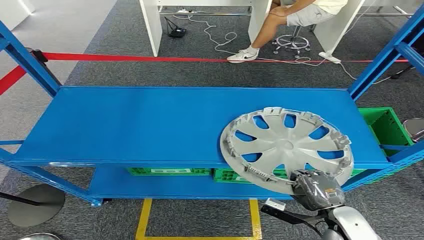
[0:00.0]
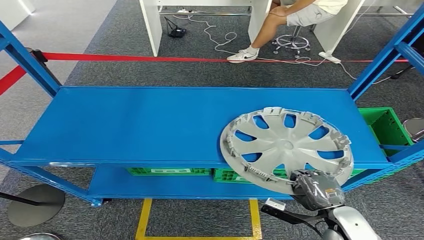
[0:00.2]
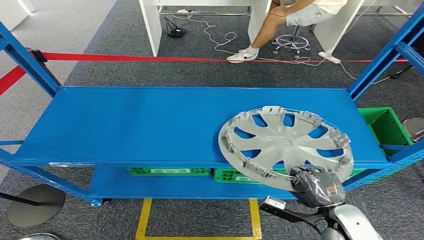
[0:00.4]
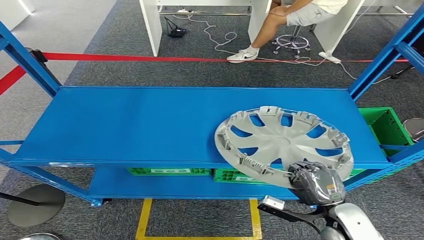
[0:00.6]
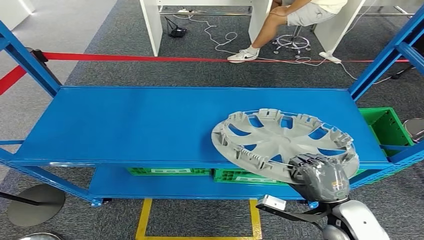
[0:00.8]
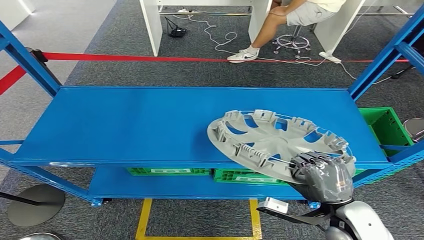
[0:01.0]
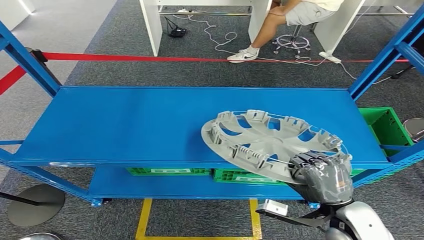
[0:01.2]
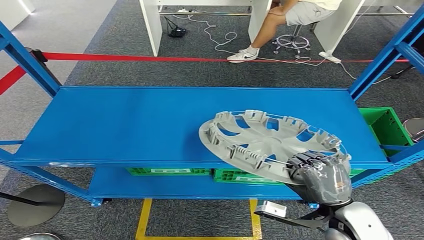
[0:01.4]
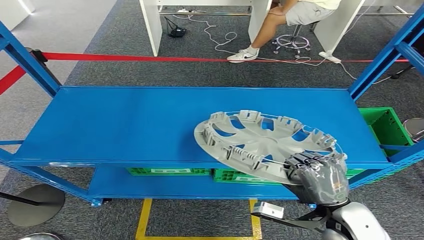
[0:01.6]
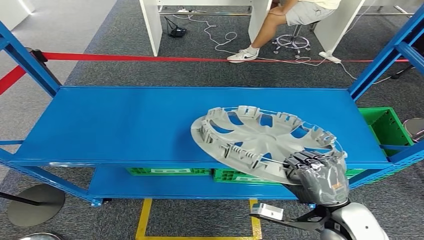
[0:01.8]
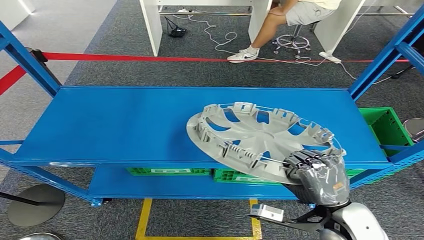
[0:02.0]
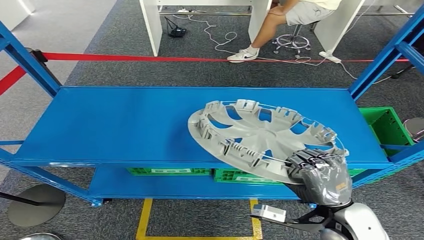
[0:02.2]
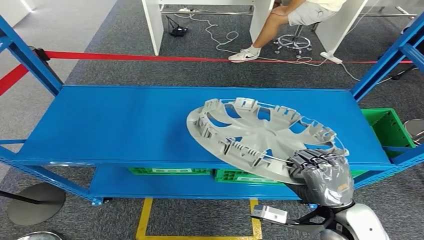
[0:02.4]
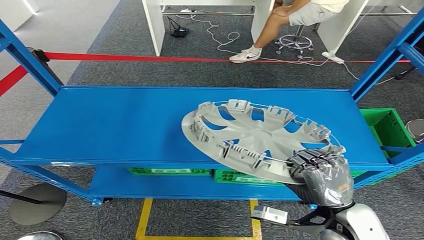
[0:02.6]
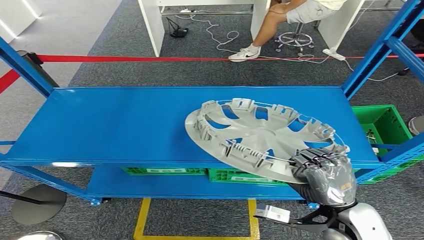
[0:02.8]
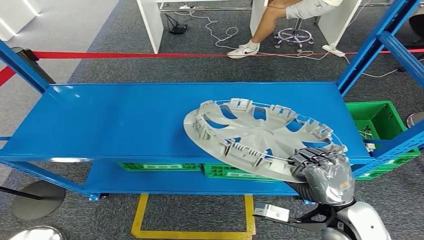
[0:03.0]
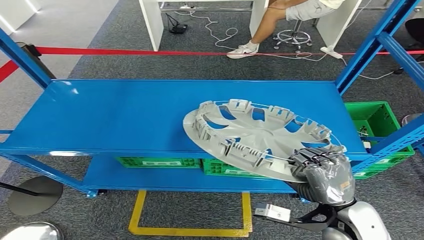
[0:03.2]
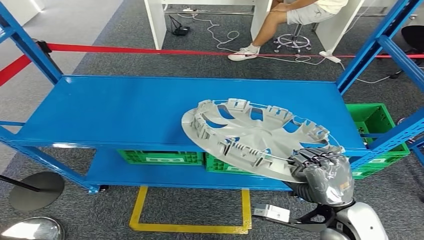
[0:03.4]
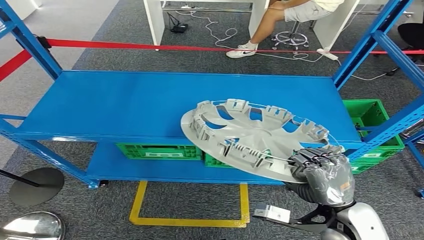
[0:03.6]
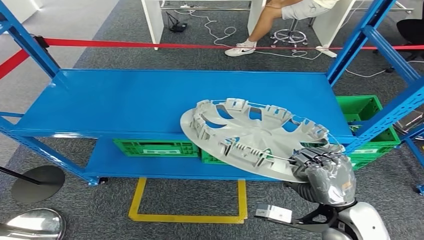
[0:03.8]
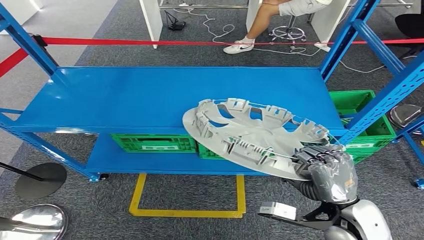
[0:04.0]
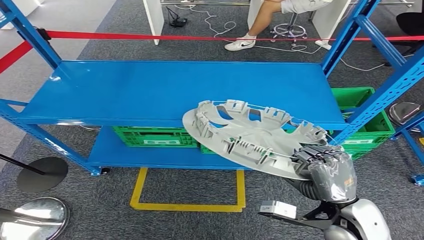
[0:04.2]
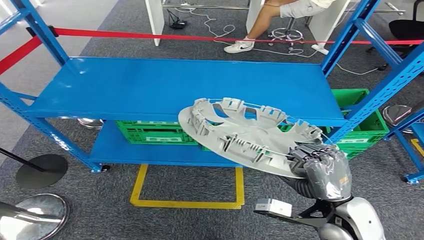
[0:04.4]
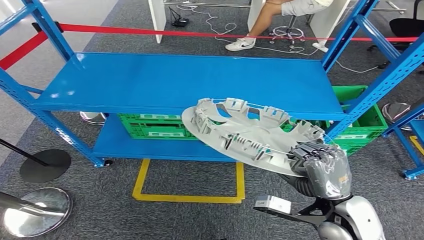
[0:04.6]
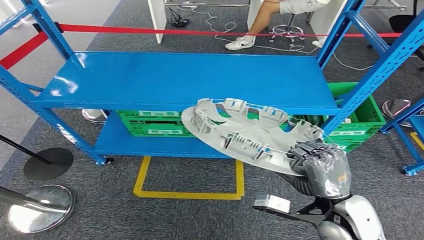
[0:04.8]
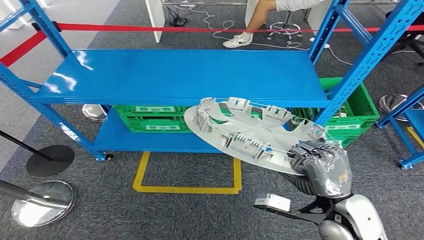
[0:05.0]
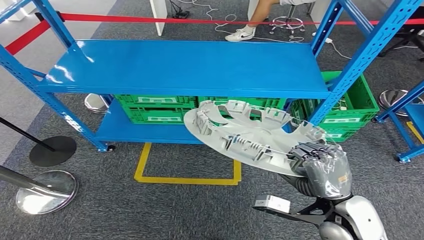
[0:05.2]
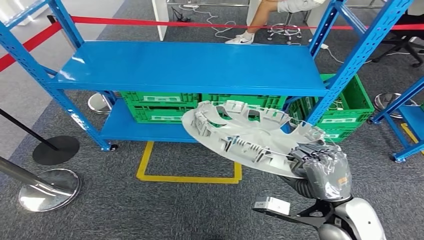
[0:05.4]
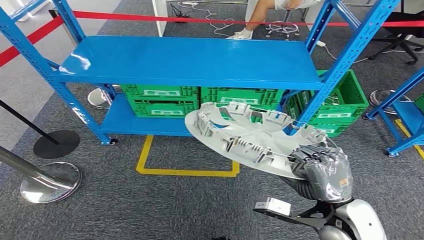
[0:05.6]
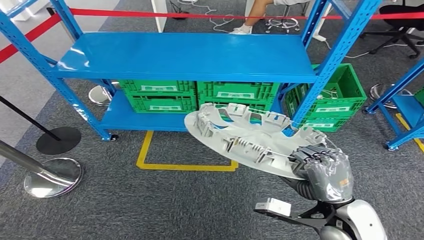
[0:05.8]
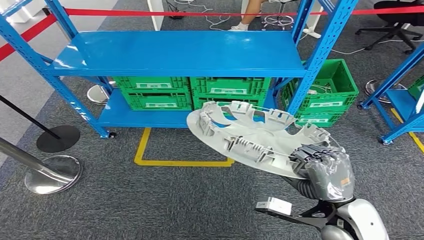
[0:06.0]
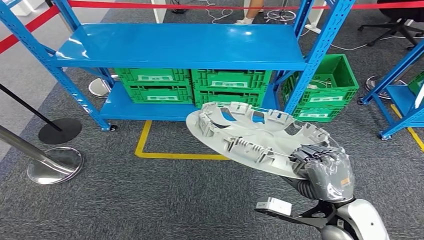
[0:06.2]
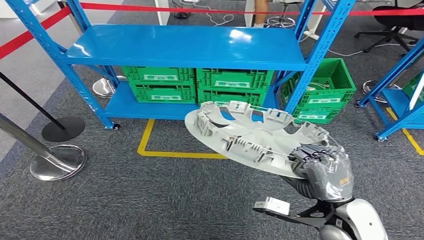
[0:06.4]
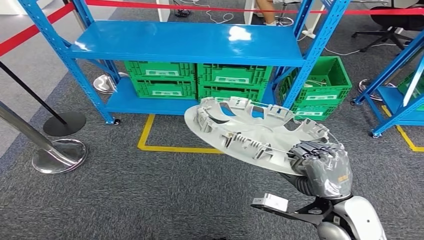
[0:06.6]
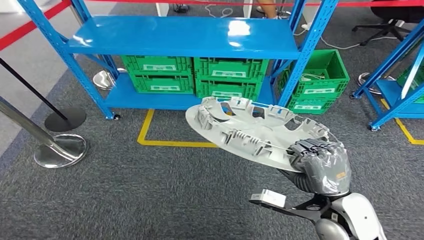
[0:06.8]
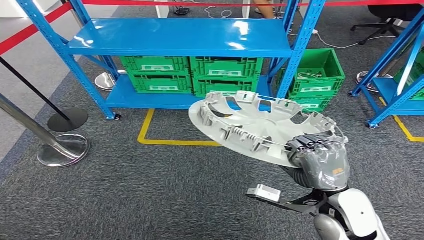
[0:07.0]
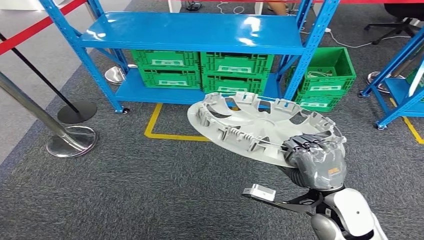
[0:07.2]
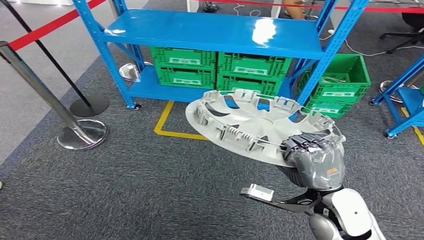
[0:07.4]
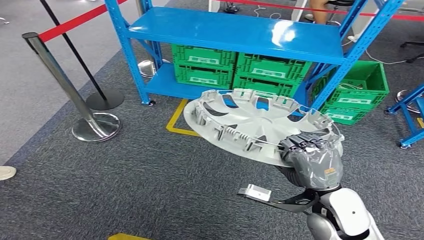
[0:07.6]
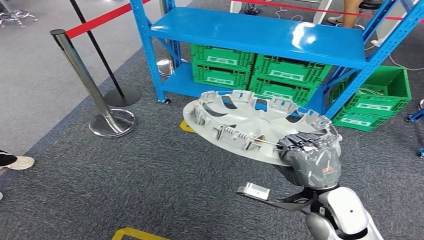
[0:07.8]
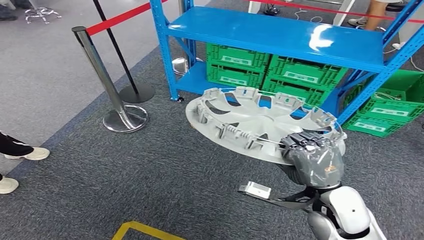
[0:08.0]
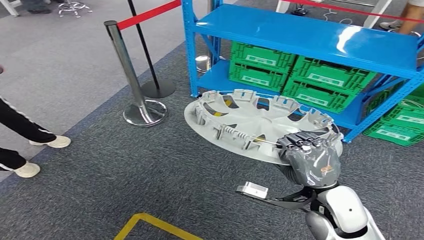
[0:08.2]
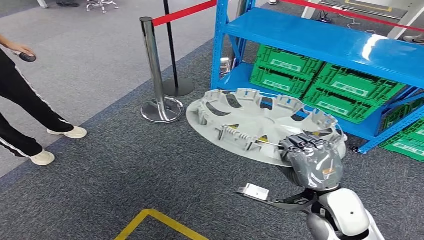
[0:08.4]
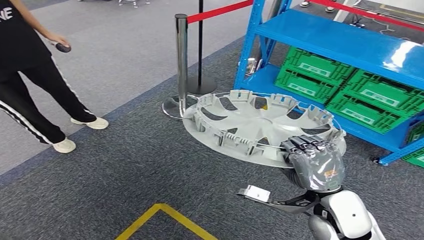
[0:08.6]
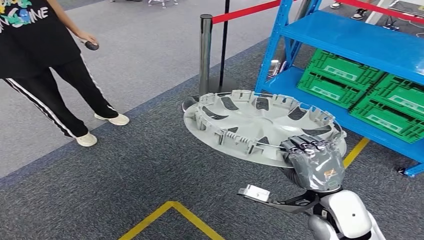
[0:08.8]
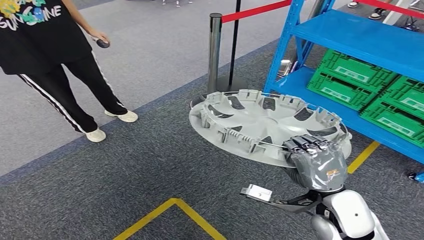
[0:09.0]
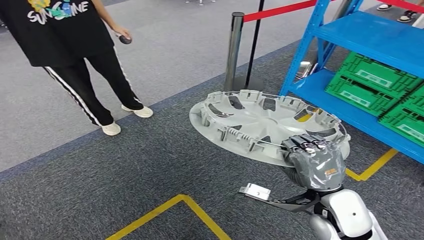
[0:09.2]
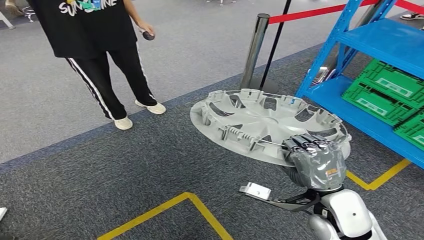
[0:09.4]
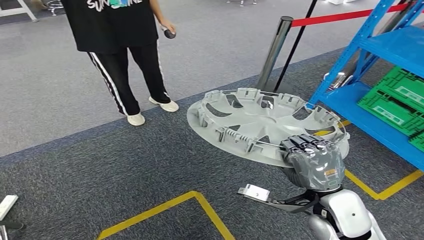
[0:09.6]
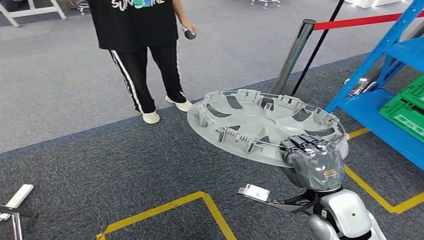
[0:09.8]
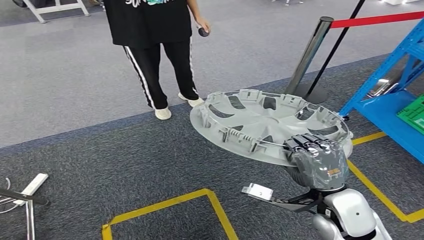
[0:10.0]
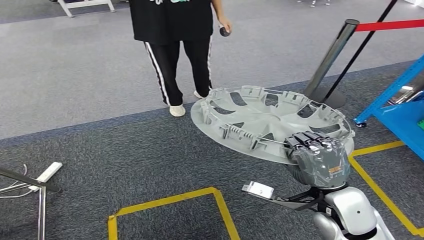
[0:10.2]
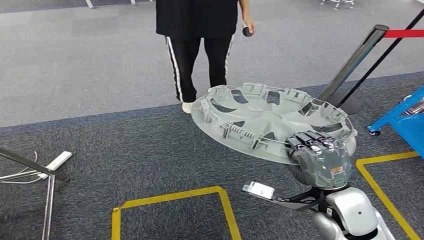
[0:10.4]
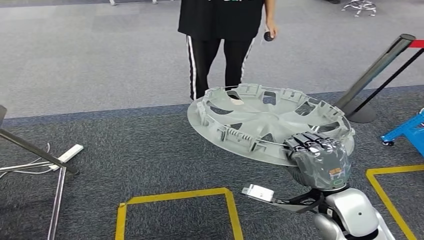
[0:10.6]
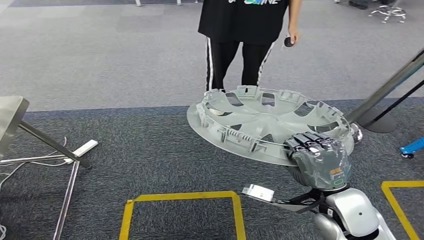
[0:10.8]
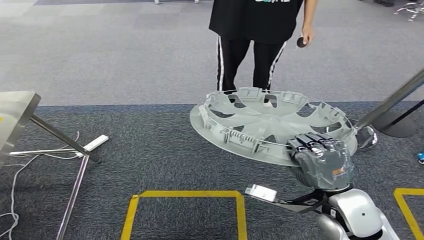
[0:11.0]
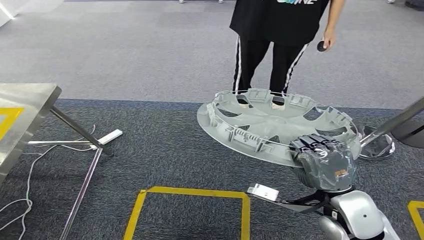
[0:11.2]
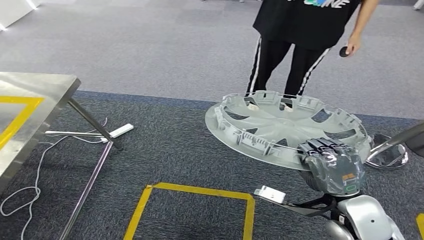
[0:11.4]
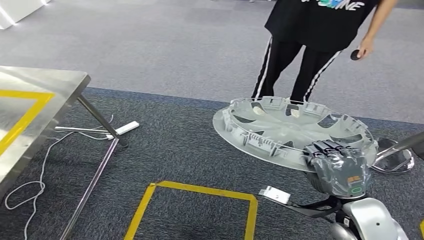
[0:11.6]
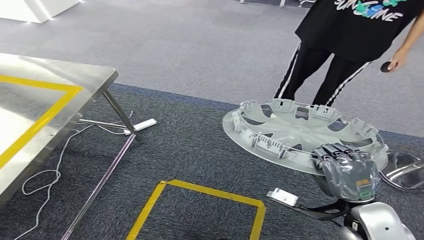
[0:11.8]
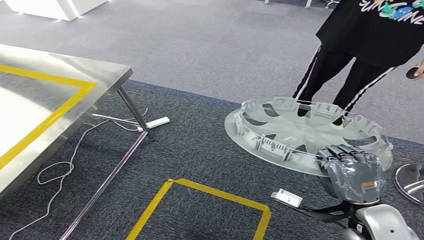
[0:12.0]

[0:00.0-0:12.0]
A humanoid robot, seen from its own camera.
Step, 0:00.0 to 0:03.6: Take small components from the rack.

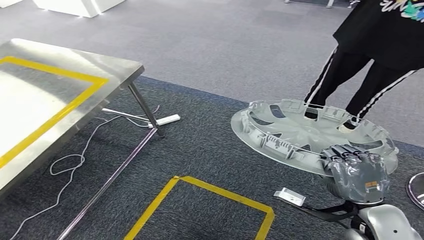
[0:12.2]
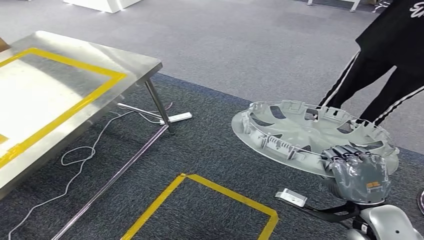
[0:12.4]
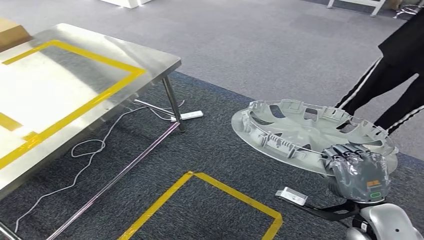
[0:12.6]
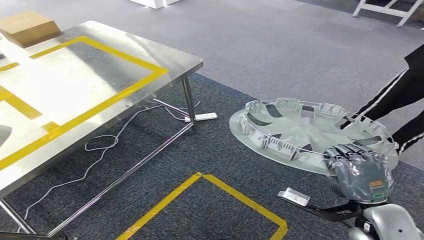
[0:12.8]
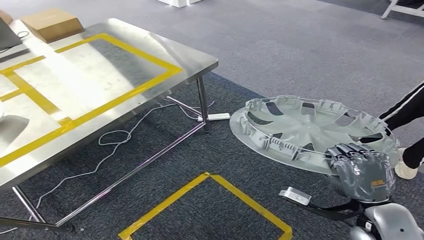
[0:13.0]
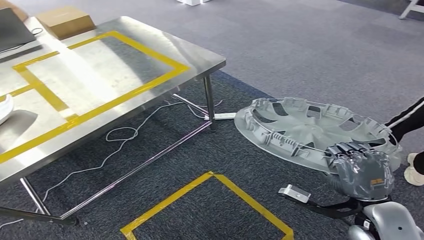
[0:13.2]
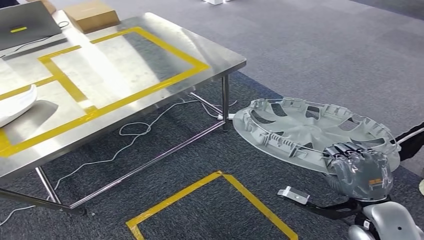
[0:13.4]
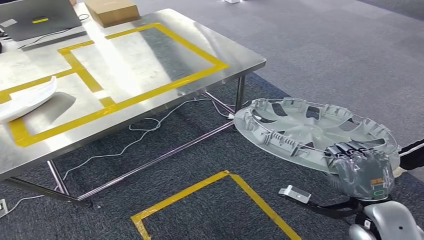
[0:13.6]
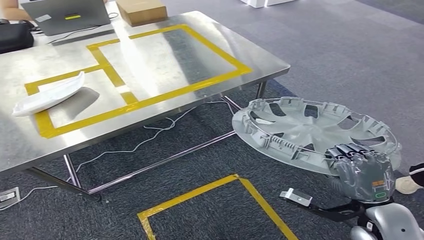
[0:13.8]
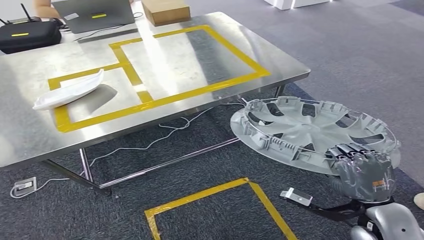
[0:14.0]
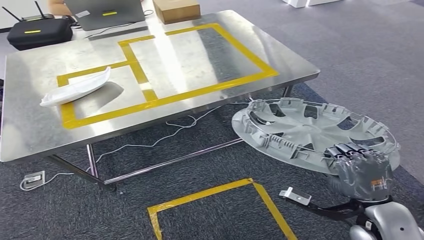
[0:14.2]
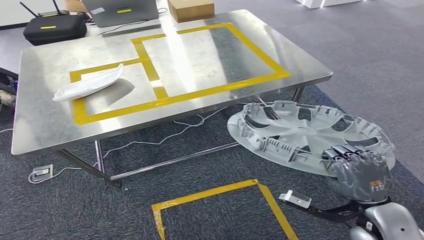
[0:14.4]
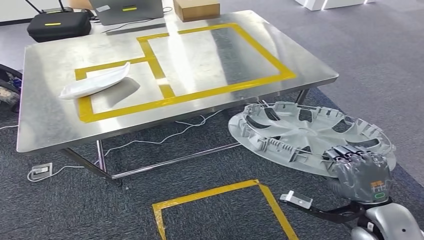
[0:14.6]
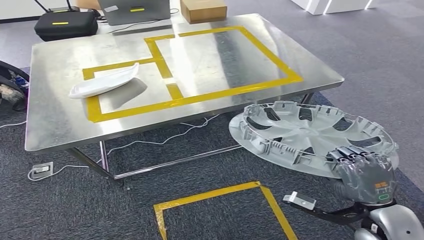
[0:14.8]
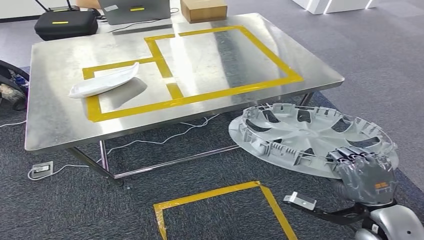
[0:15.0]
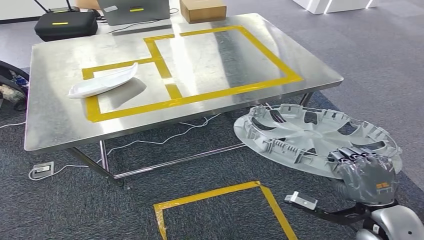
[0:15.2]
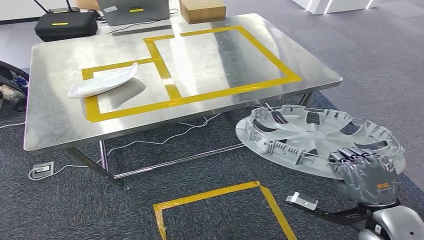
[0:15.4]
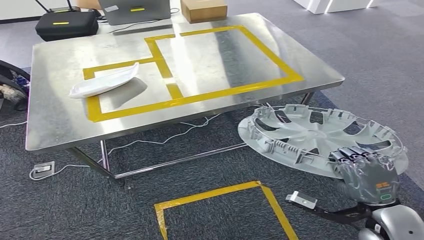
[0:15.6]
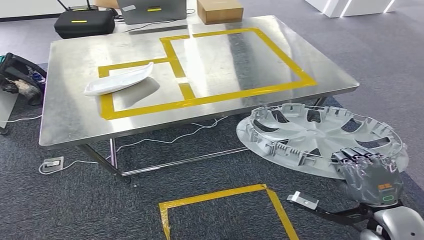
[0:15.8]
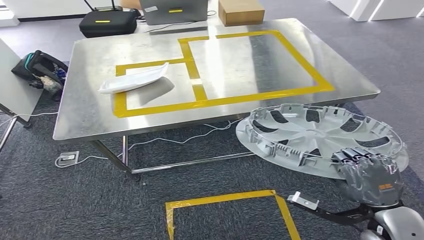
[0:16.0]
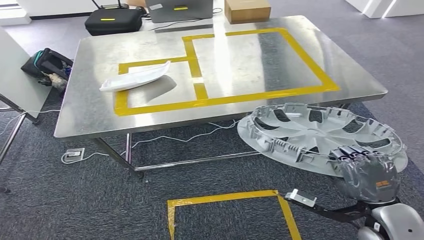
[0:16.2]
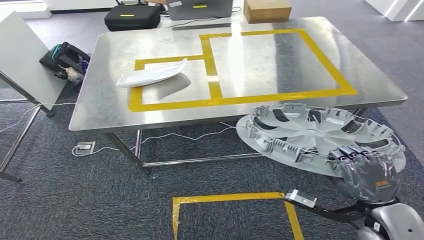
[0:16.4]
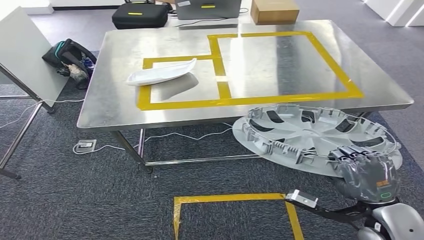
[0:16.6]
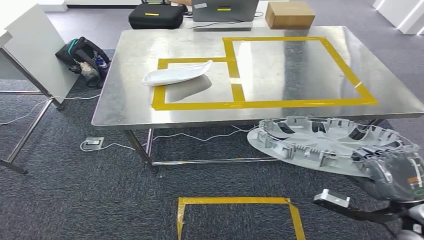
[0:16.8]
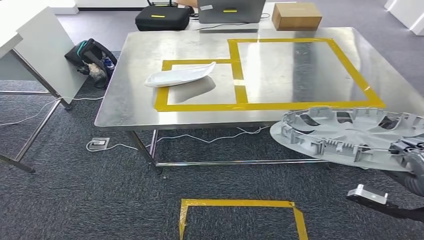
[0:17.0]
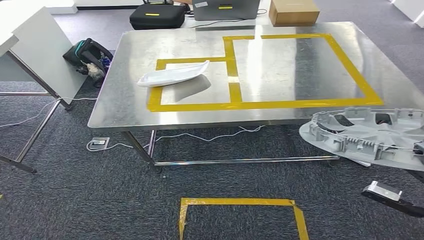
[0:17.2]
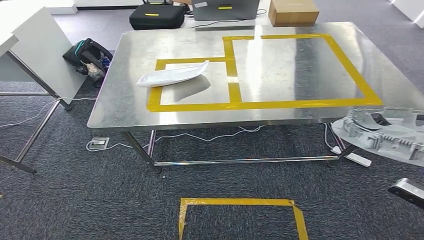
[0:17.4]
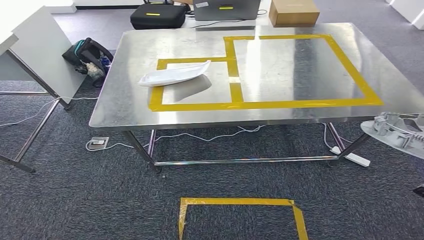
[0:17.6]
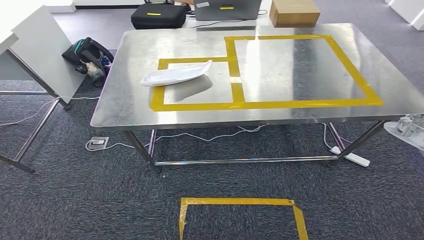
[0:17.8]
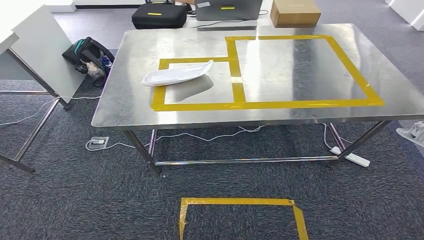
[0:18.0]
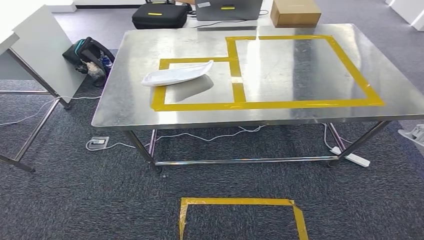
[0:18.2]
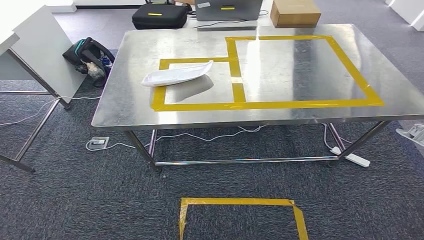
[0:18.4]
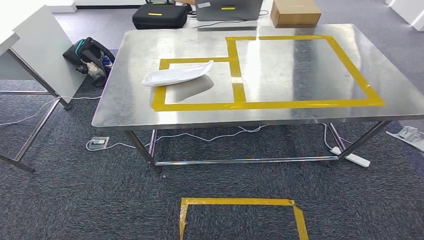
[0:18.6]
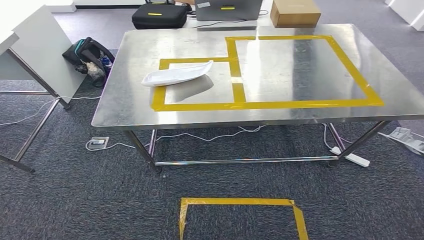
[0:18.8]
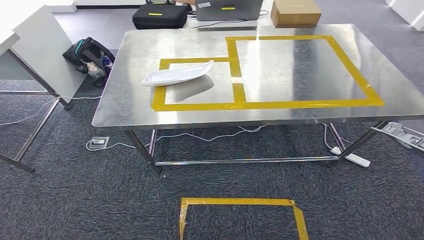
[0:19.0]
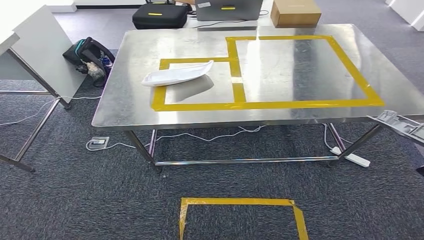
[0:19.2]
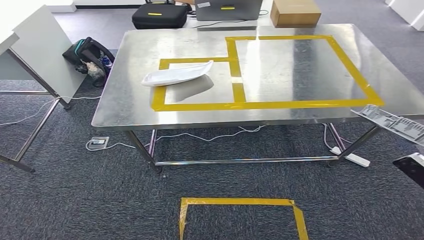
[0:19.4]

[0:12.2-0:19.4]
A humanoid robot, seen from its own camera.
Step, 0:12.2 to 0:16.6: Move the small parts to the workbench.
0:18.0 to 0:19.4: The right hand travels forward and downward by some 10 cm.
